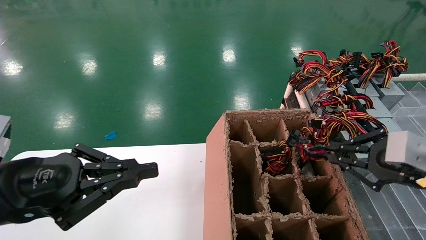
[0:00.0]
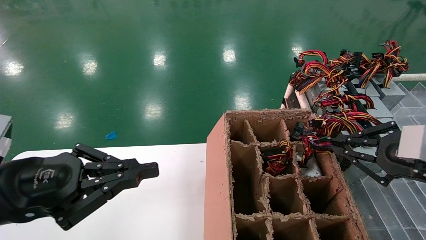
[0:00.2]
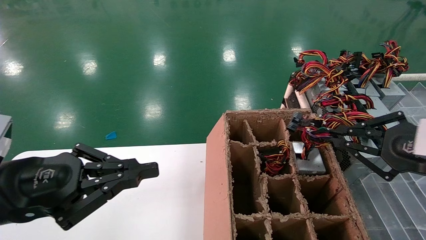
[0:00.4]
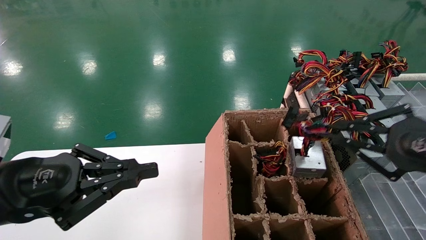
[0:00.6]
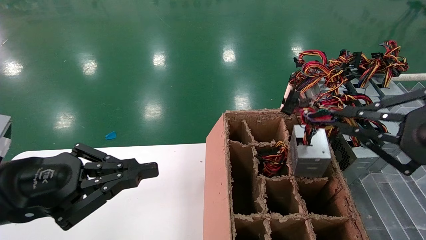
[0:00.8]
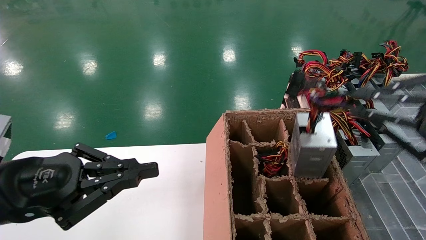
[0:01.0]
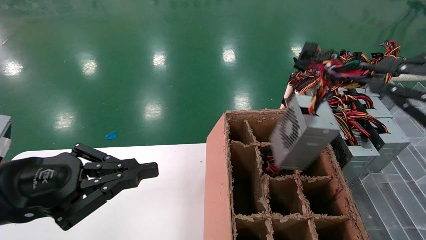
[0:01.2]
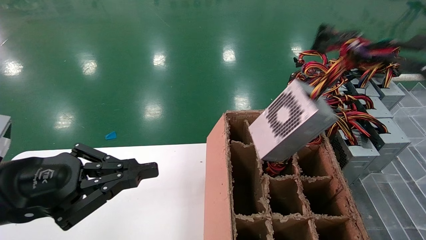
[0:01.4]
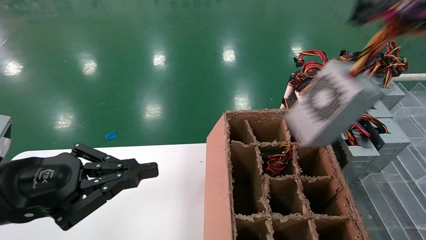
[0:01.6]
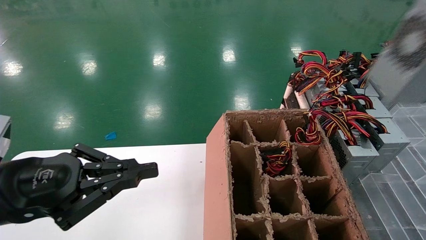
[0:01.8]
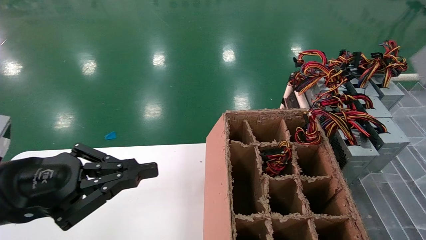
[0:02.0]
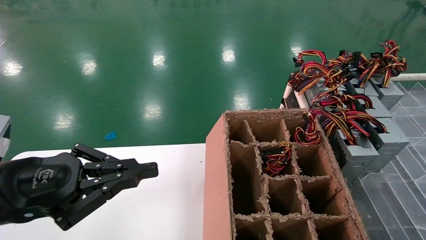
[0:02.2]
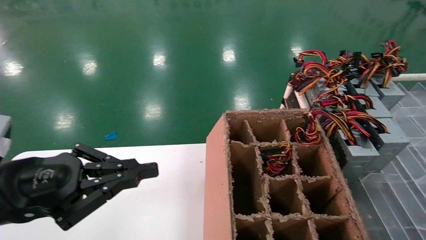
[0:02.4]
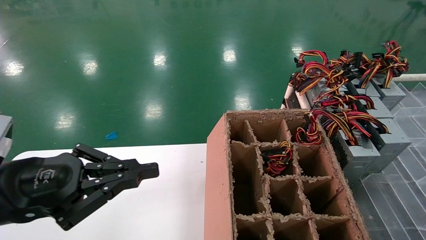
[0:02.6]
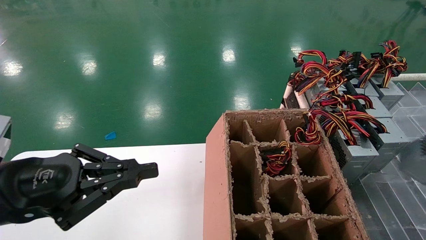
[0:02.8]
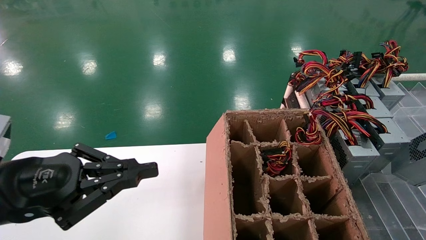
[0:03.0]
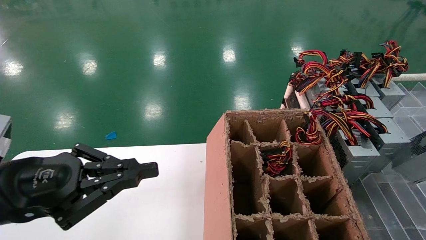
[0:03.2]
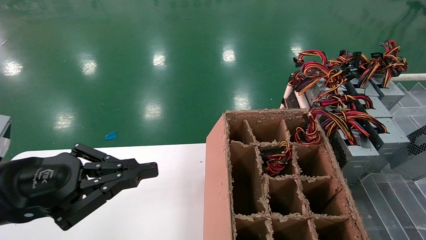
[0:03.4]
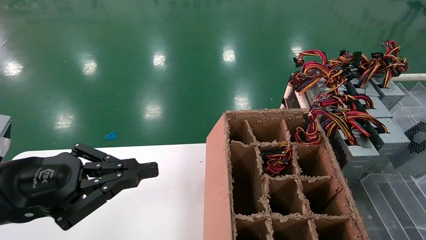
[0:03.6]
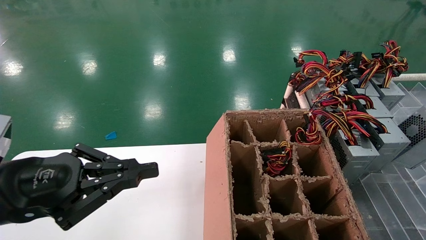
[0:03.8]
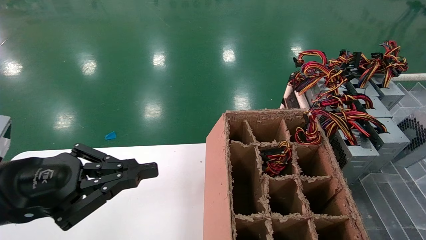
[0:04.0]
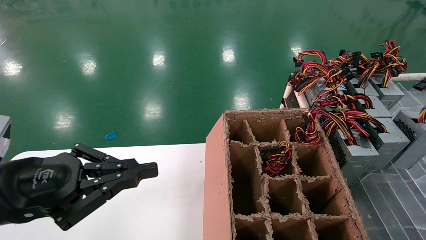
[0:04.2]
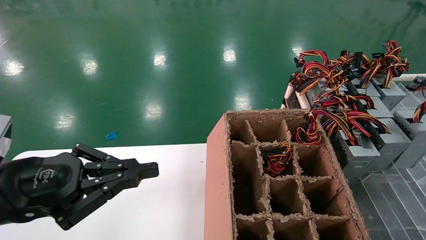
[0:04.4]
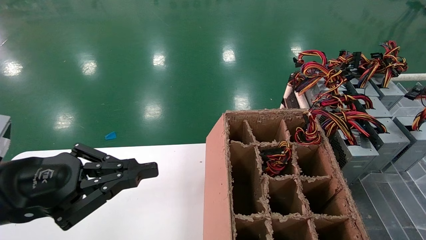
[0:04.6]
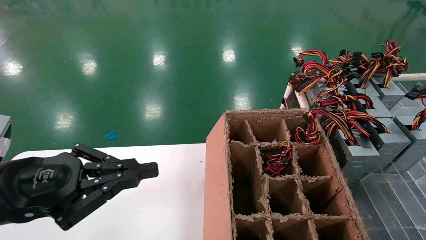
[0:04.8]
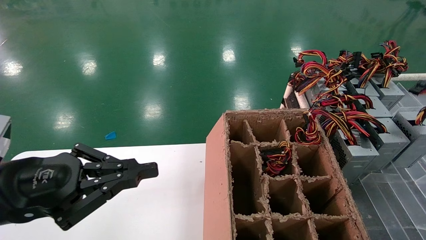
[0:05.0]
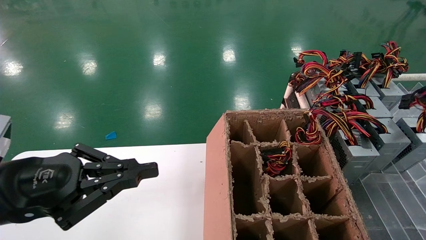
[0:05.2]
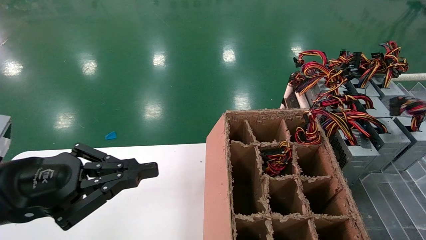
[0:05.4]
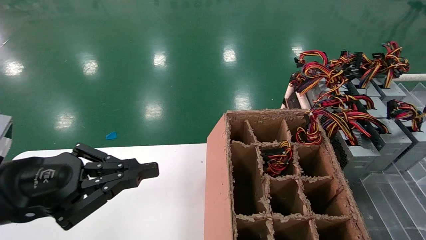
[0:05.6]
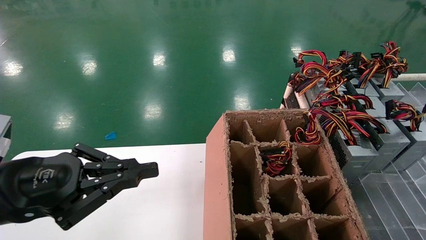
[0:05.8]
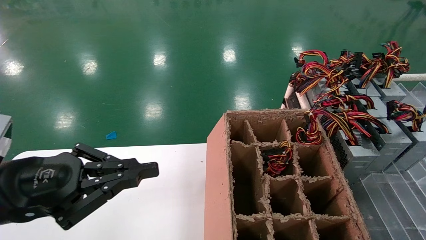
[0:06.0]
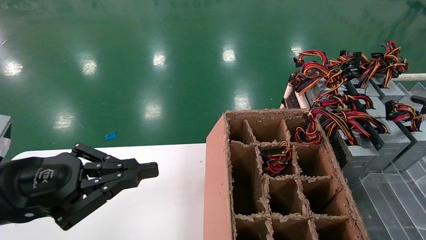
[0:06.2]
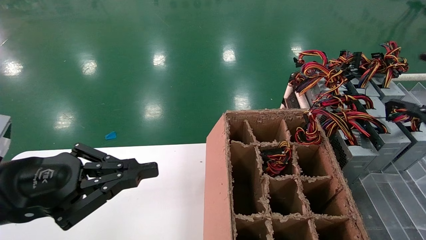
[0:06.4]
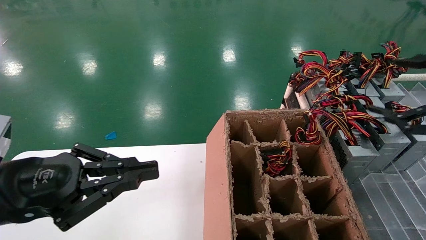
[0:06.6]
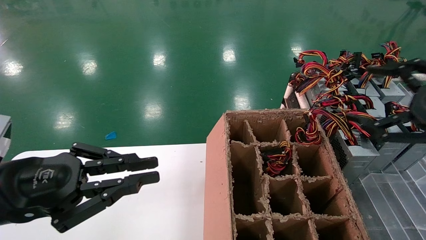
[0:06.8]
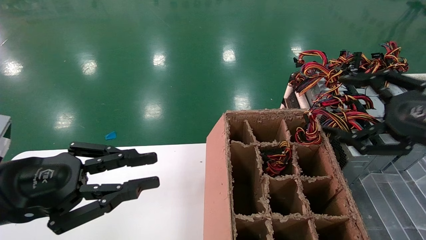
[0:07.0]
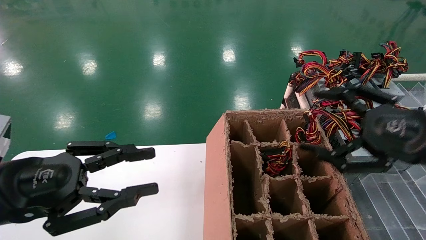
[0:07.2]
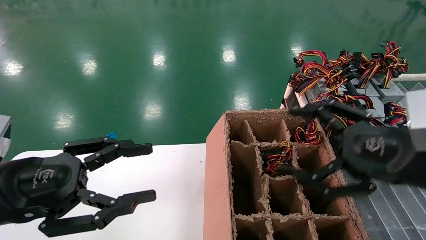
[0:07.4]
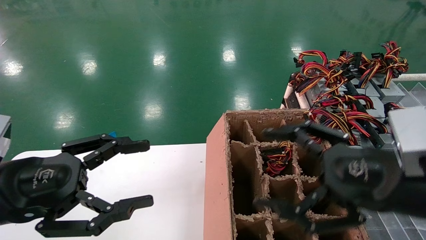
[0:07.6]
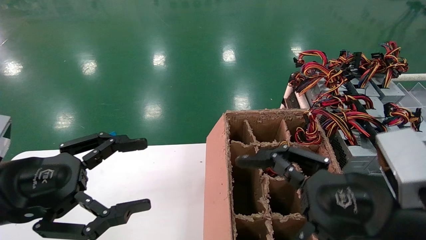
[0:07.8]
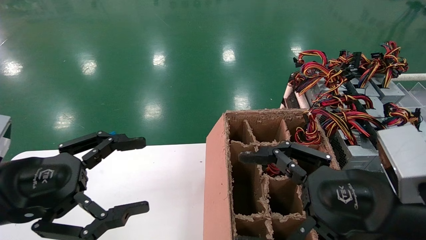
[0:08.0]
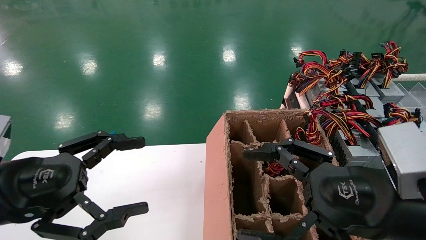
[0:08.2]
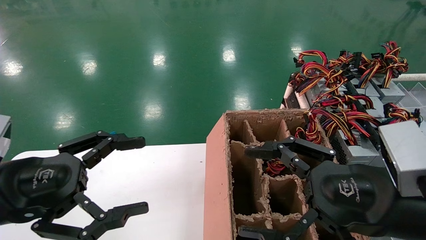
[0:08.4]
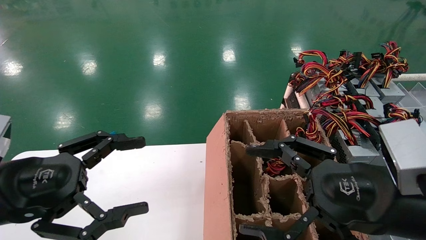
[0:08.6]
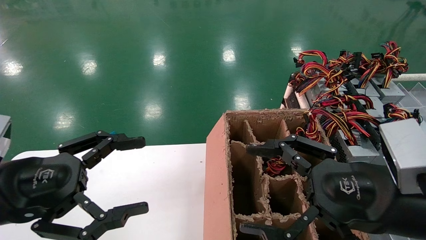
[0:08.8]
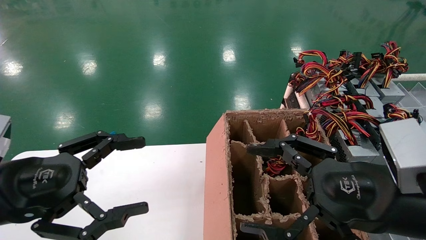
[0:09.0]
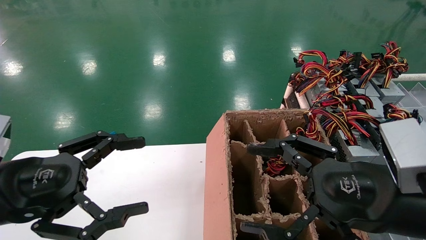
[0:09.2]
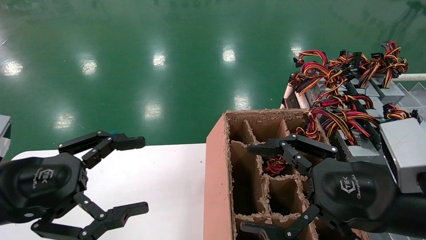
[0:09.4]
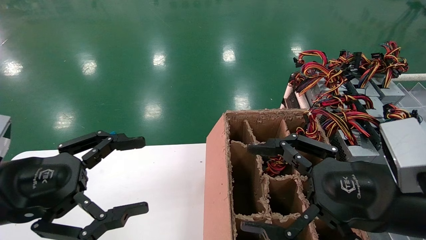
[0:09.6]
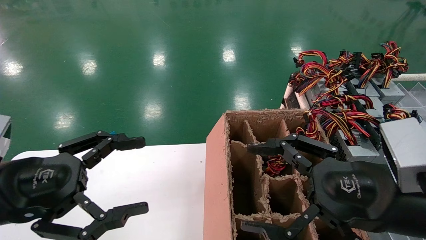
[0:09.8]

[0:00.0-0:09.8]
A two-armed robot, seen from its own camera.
Step, 0:00.0 to 0:06.2: Place the main unit power supply in the designated area.
0:00.0 to 0:01.4: The right gripper goes roughly 20 cm upward and backward.
0:01.4 to 0:02.8: The right gripper is displaced to the right by some 20 cm.
0:02.8 to 0:04.2: The right gripper travels forward by approximately 10 cm.
0:04.2 to 0:05.6: The grippers move only a little.
0:05.6 to 0:07.0: The right gripper is displaced to the left by about 20 cm, and opens its fingers.
0:07.0 to 0:08.4: The left gripper opens up; the right gripper shifts some 15 cm to the left and downward.
0:08.4 to 0:09.8: The two grippers keep their place.

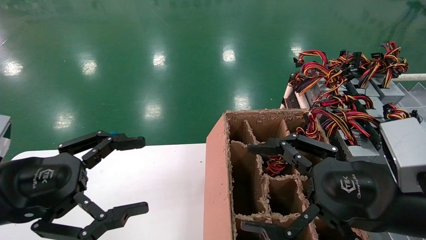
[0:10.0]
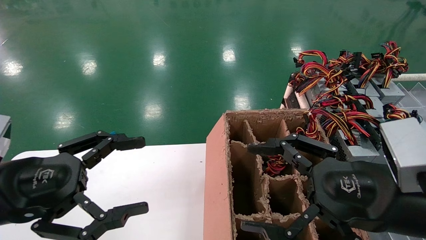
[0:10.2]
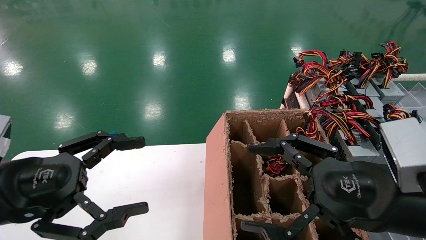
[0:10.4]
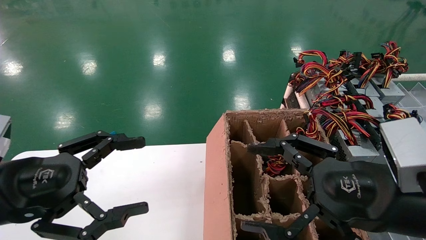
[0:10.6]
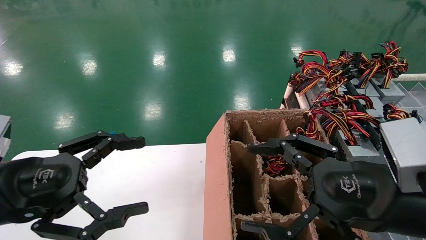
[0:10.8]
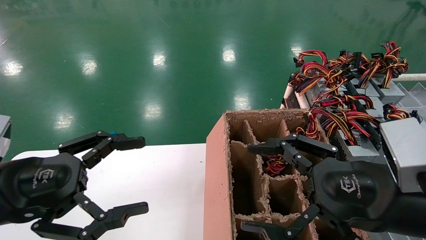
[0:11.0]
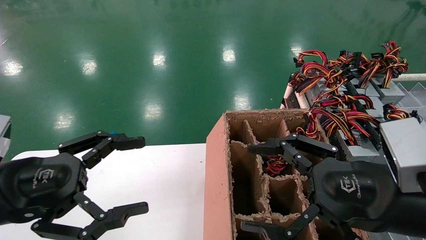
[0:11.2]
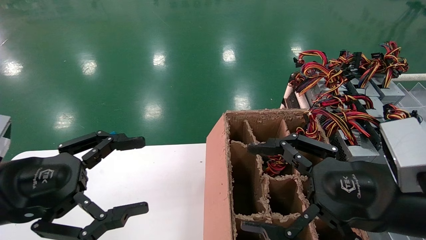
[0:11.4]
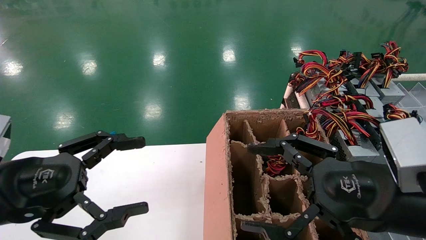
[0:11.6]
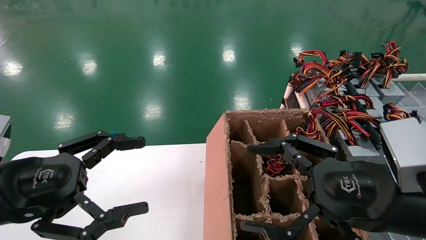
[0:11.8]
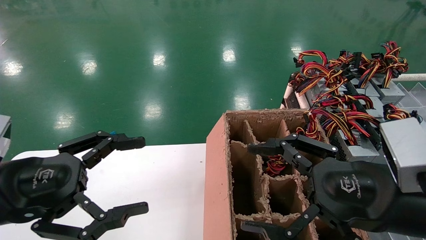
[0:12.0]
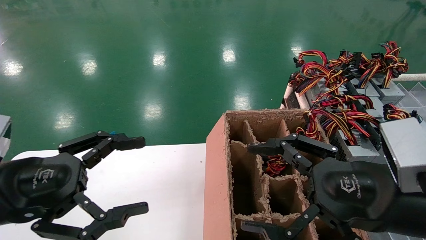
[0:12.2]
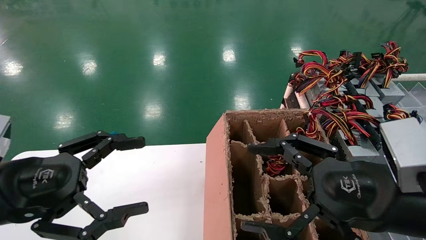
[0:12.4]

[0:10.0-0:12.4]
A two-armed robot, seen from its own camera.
0:10.0 to 0:12.4: Both grippers stay put.
